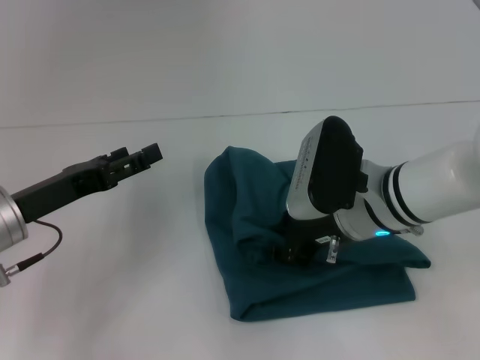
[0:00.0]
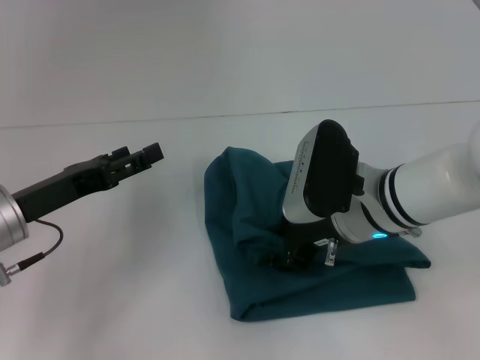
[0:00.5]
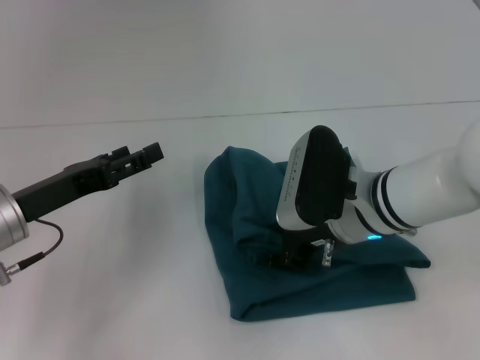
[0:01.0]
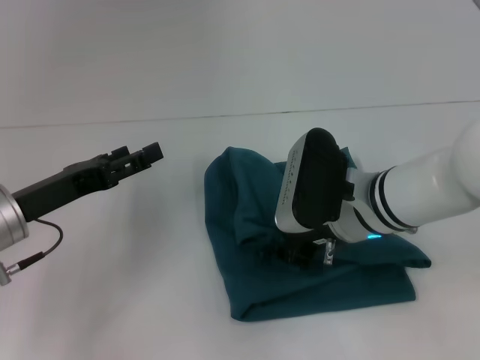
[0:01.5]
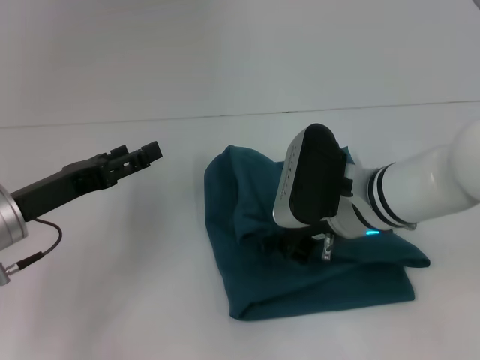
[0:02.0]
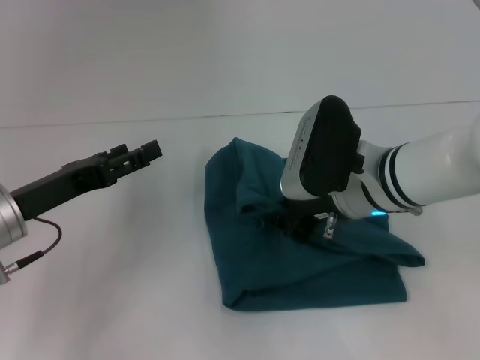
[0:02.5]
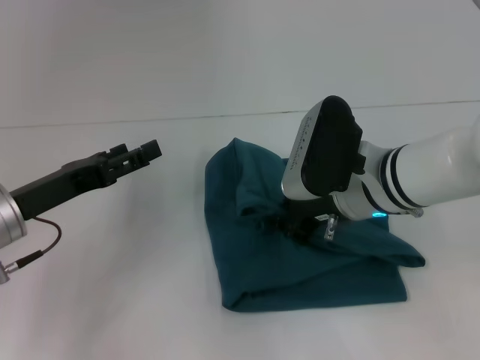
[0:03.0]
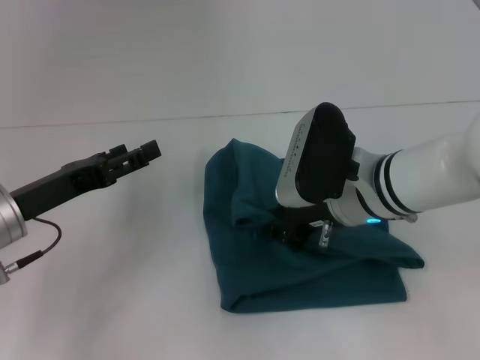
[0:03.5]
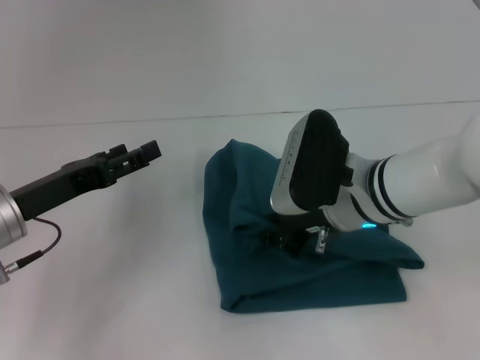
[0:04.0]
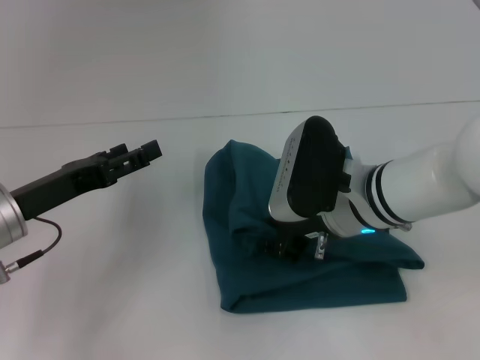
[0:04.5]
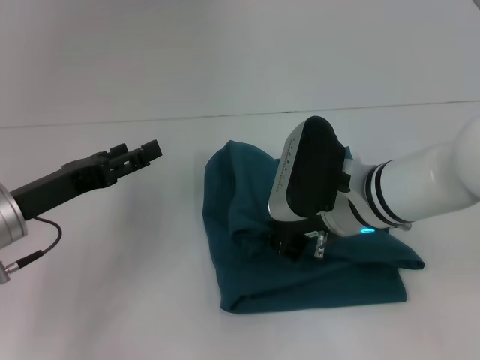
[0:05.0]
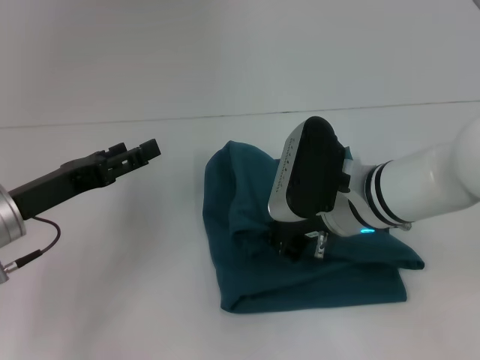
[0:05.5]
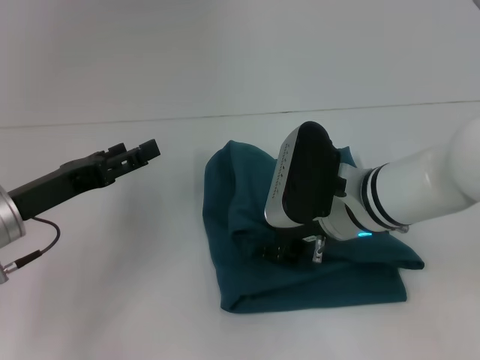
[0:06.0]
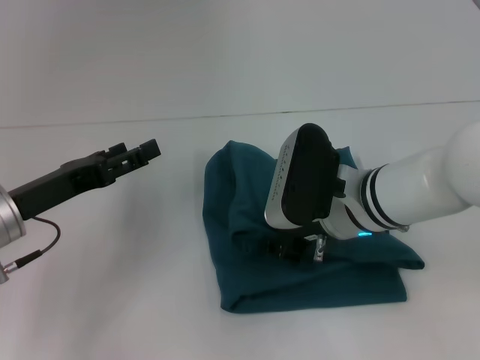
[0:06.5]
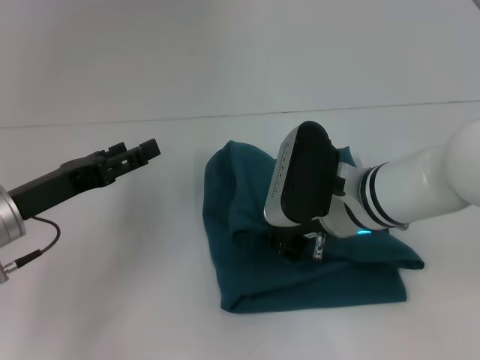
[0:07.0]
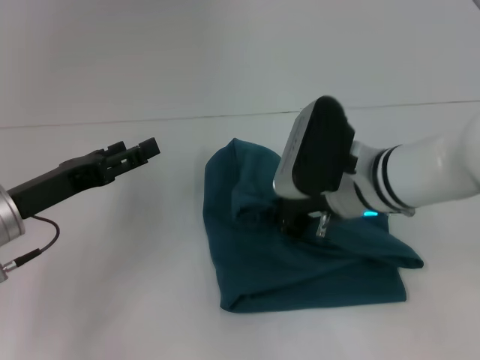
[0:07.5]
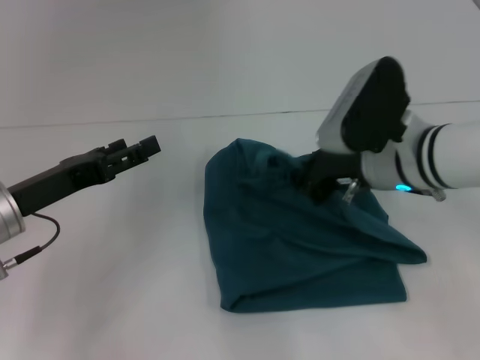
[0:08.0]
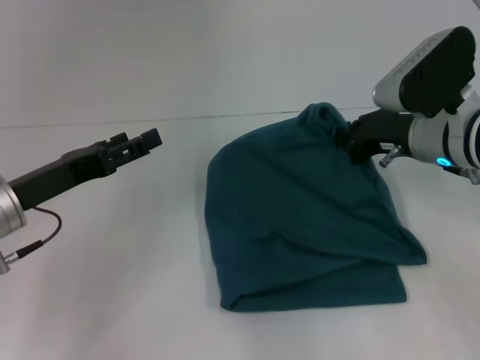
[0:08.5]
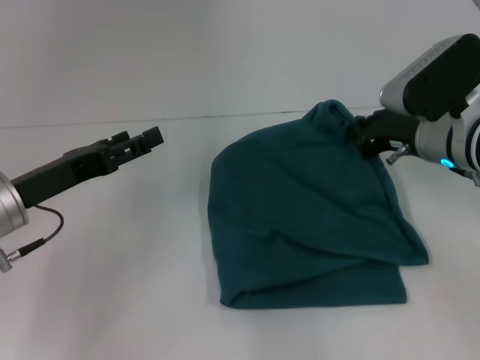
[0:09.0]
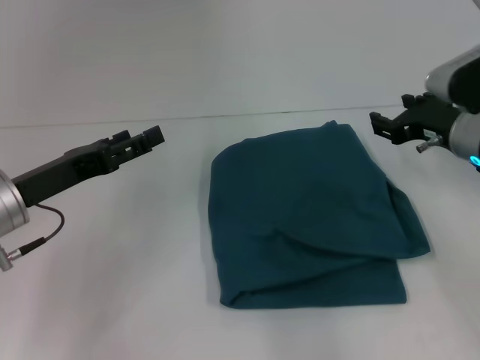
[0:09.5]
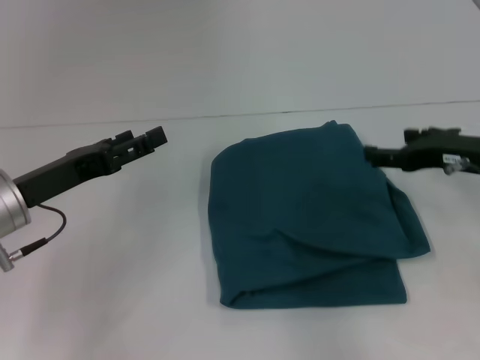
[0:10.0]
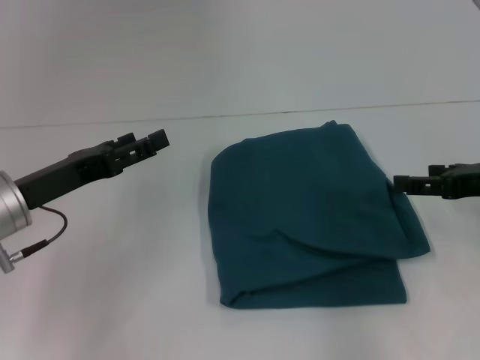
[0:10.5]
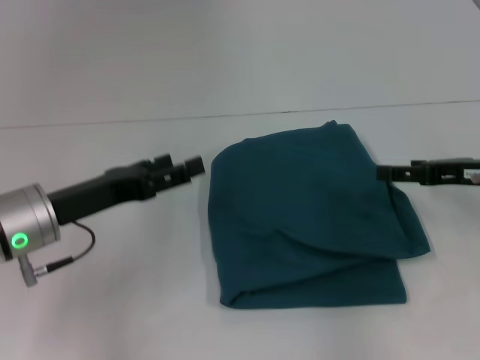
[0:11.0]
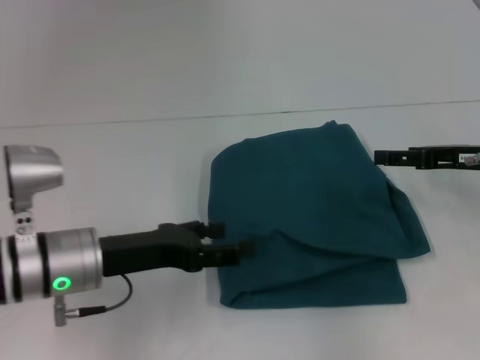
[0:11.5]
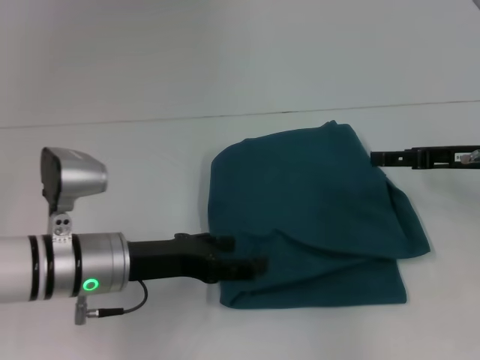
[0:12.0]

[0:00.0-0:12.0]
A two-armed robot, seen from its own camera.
0:00.0 to 0:04.0: There are only small adjustments of the grippers.
0:04.0 to 0:06.0: Neither gripper changes place.
0:06.0 to 0:08.0: The right gripper ends up roughly 5 cm from where it was.
0:08.0 to 0:10.0: The right gripper moves to the right, about 10 cm, and opens.
0:10.0 to 0:12.0: The left gripper heads to the right, covering about 10 cm.

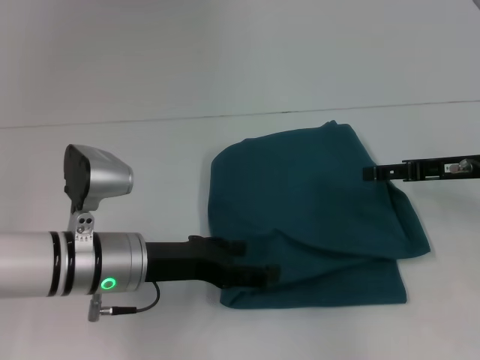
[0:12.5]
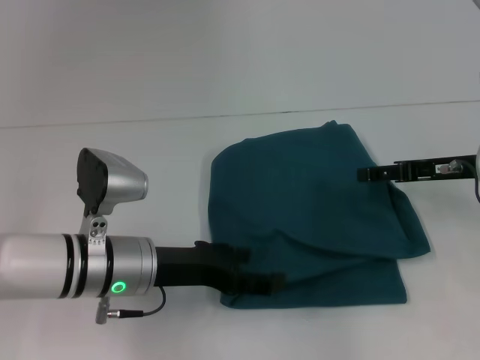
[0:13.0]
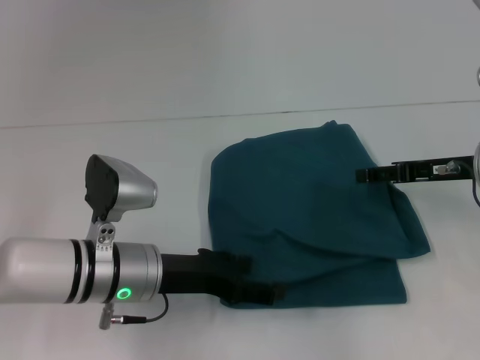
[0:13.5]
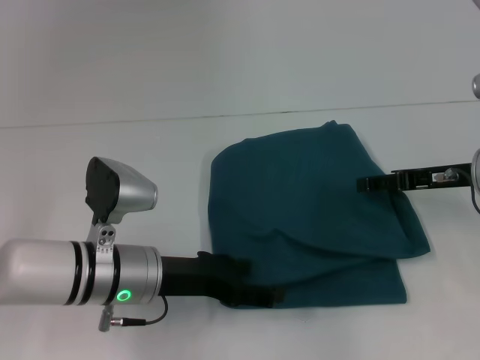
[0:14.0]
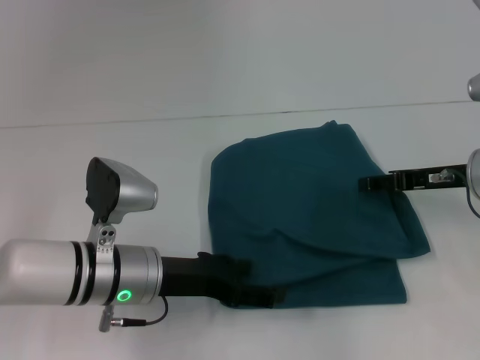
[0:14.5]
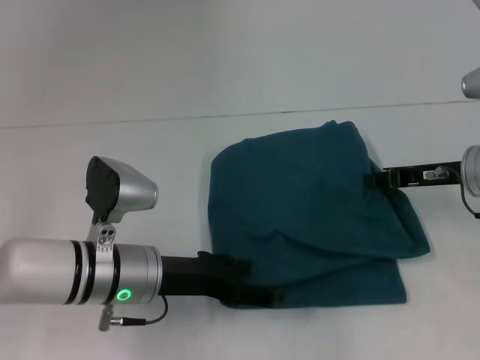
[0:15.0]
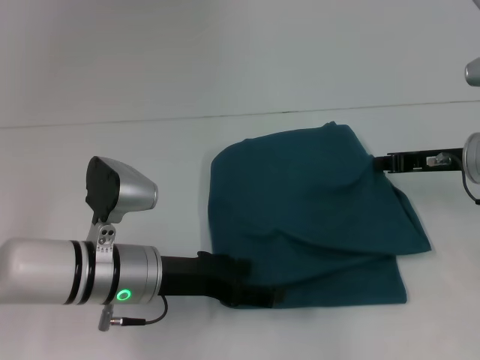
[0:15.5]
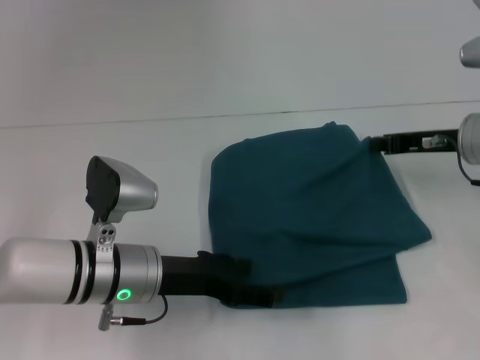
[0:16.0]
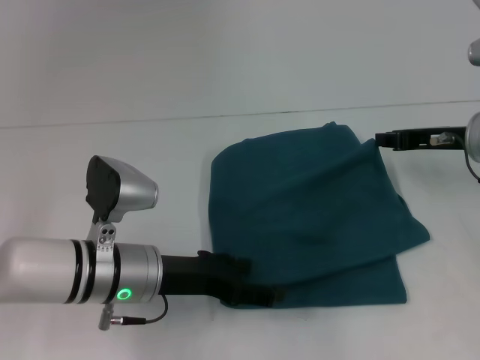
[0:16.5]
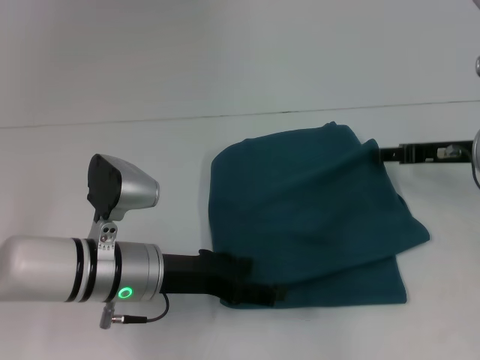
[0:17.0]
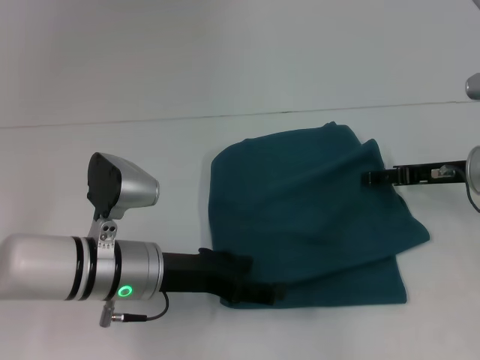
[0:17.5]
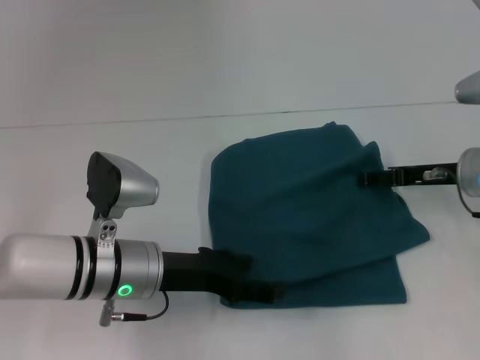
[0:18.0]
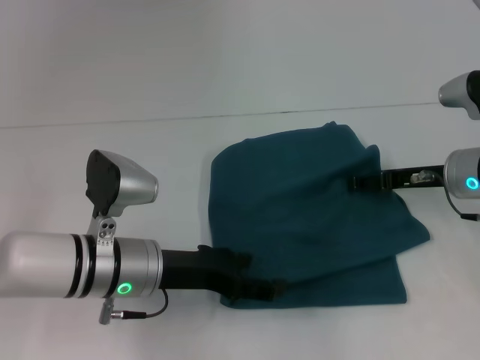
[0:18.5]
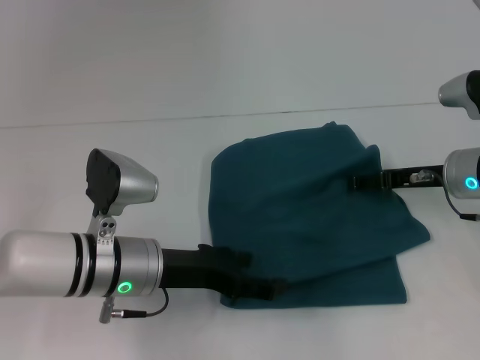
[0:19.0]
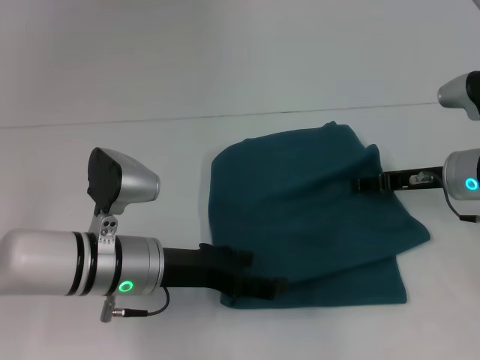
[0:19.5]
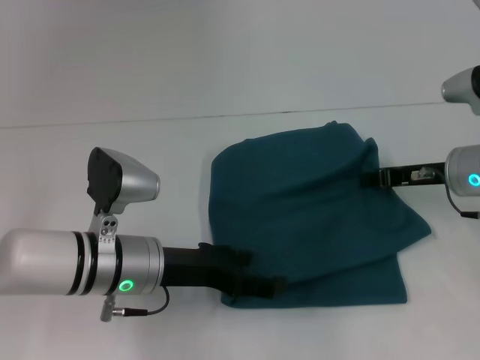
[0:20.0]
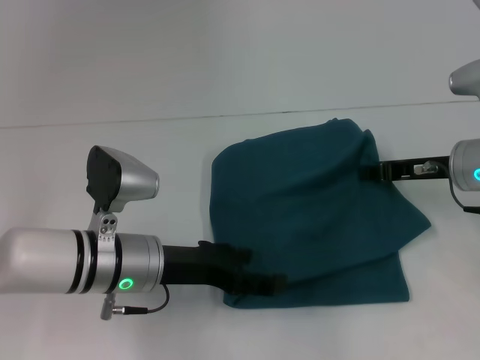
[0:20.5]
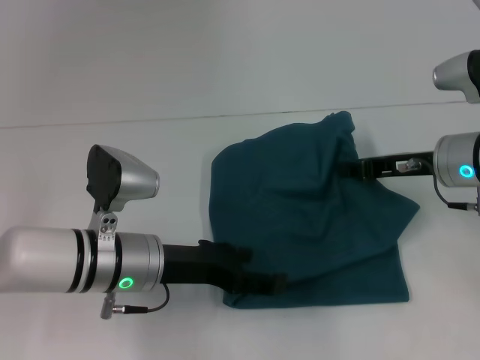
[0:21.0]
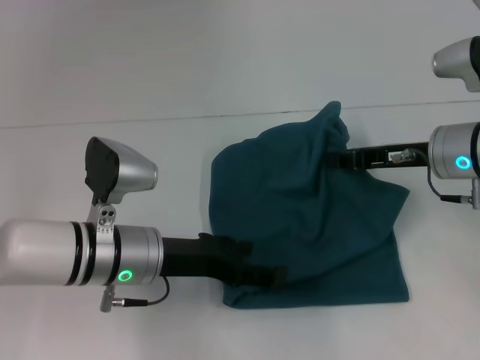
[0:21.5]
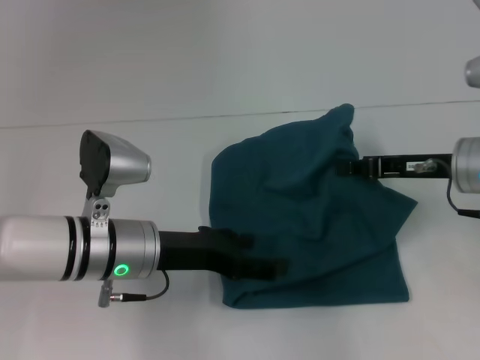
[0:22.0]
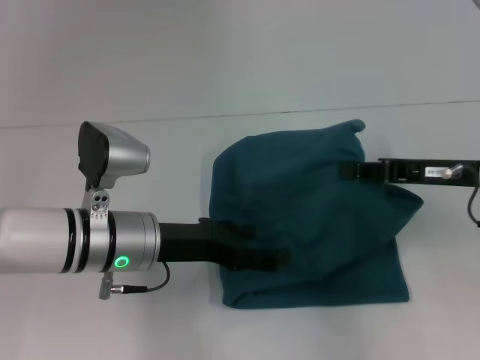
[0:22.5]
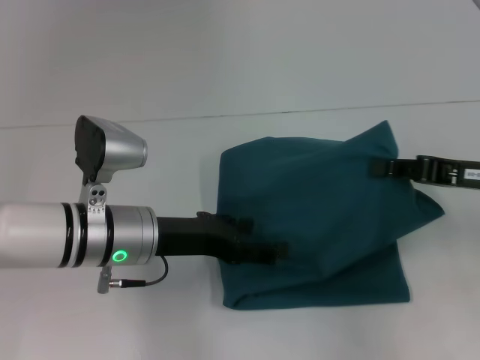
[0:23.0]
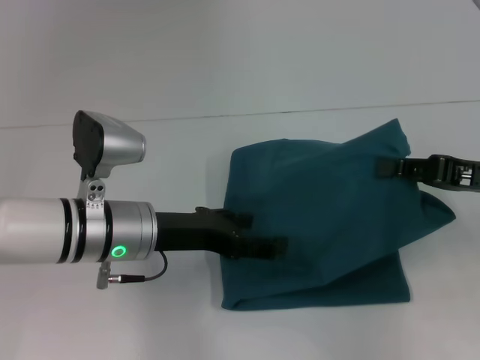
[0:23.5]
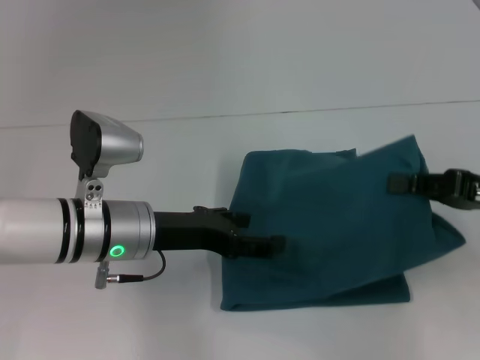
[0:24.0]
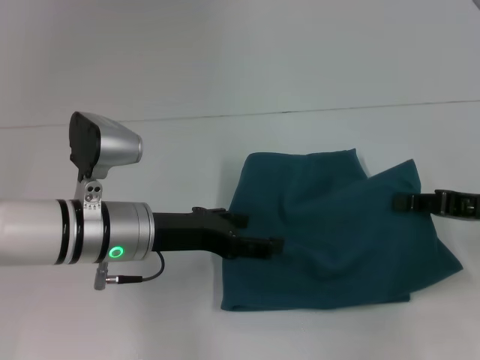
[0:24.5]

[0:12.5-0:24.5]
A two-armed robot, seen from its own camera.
0:12.5 to 0:14.5: There are only small adjustments of the grippers.
0:14.5 to 0:16.5: The right gripper closes up.
0:16.5 to 0:18.5: The right gripper opens its fingers.
0:18.5 to 0:20.5: The right gripper closes.
0:20.5 to 0:22.5: The right gripper goes some 5 cm backward.
0:22.5 to 0:24.5: The right gripper ends up roughly 5 cm from where it was.

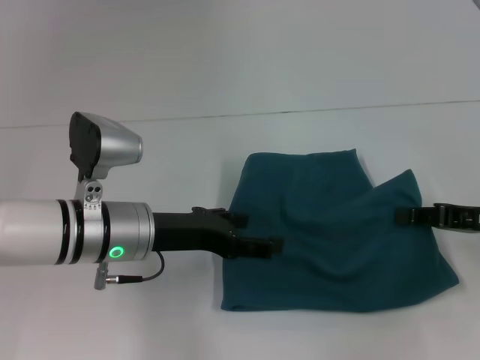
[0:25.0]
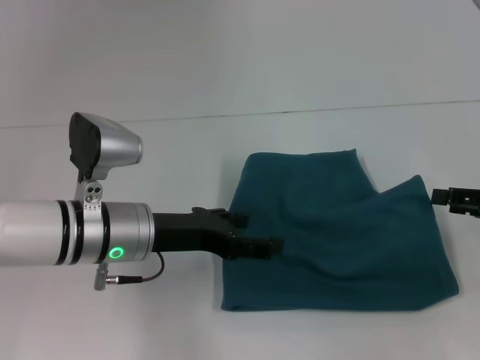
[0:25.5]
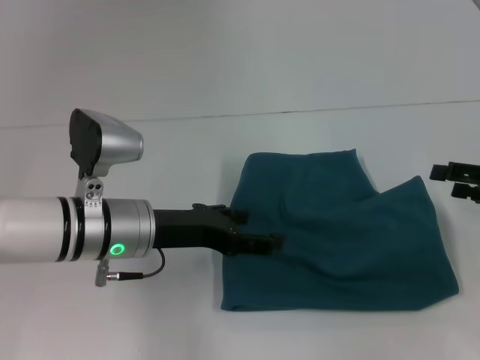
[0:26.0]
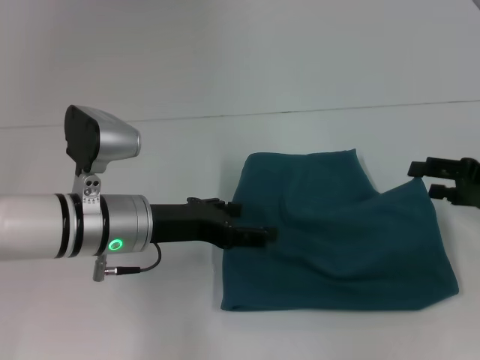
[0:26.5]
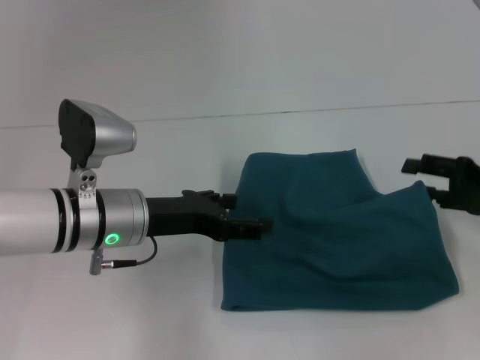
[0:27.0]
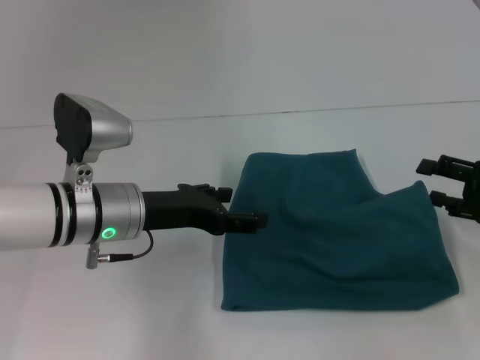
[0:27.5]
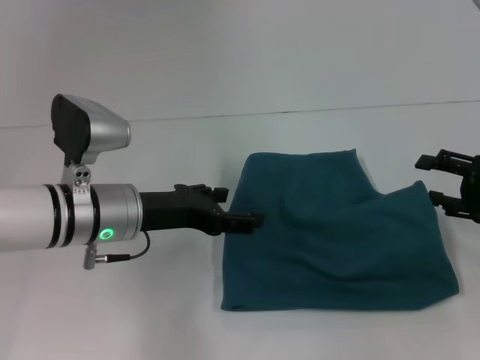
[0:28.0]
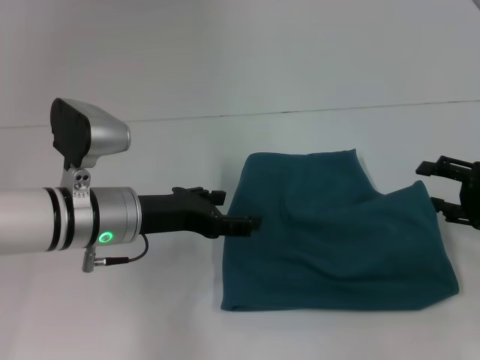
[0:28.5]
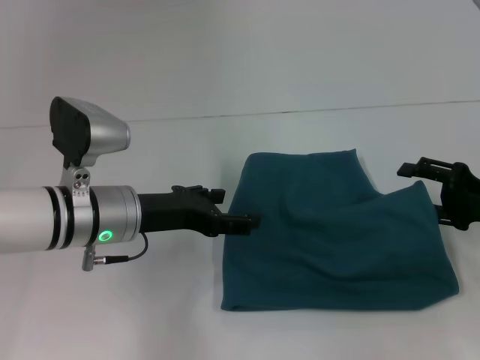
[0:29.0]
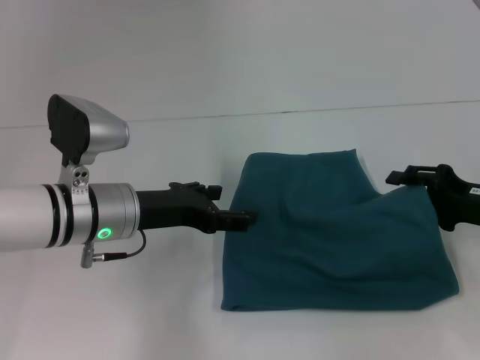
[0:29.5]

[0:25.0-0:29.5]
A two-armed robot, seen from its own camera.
0:25.0 to 0:27.0: The right gripper opens.
0:27.0 to 0:29.5: The grippers stay close to where they were, moving slightly.
